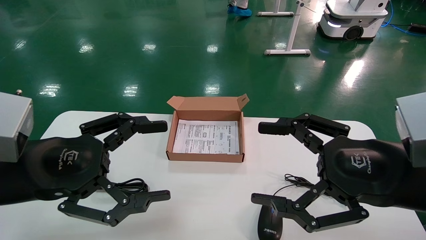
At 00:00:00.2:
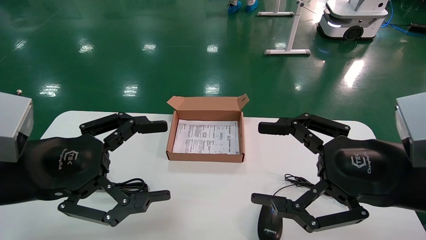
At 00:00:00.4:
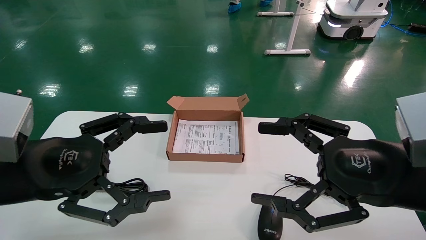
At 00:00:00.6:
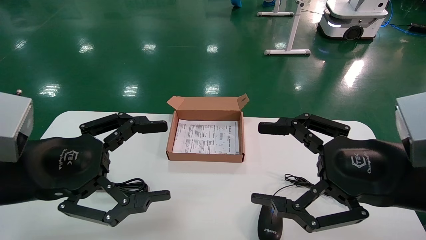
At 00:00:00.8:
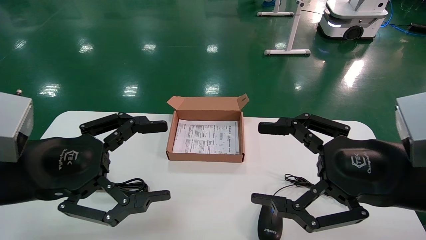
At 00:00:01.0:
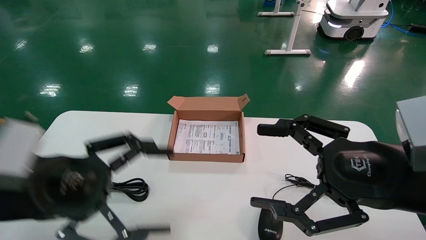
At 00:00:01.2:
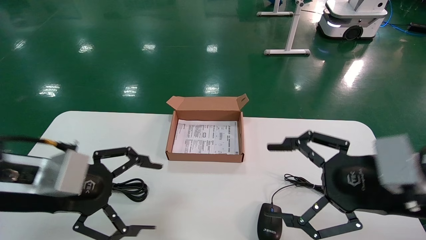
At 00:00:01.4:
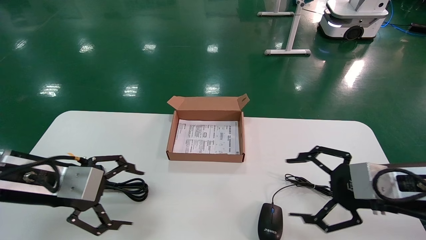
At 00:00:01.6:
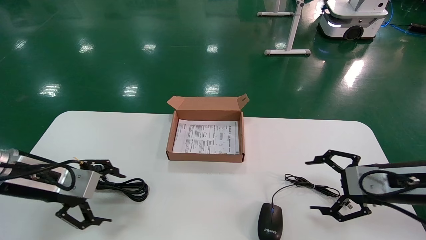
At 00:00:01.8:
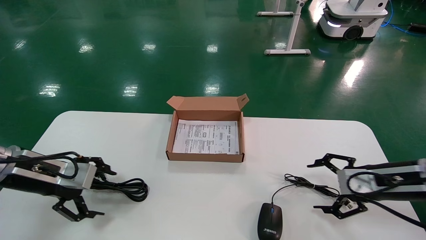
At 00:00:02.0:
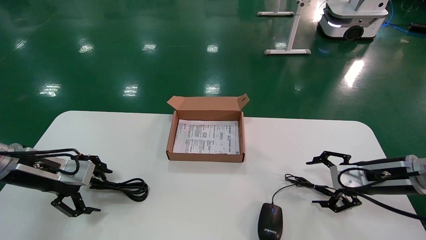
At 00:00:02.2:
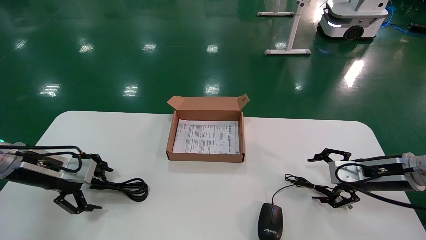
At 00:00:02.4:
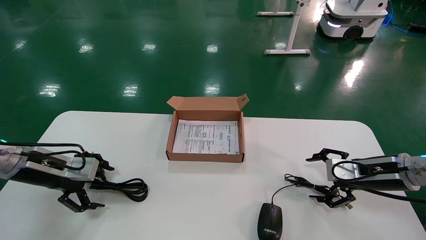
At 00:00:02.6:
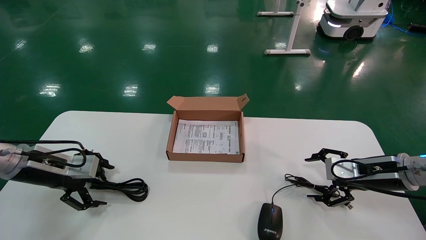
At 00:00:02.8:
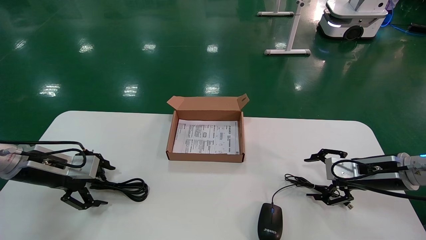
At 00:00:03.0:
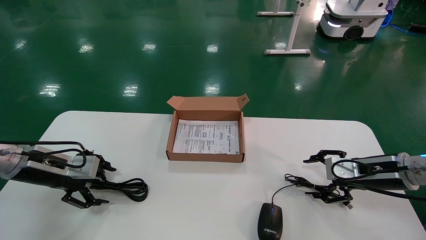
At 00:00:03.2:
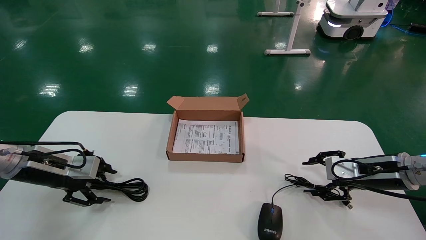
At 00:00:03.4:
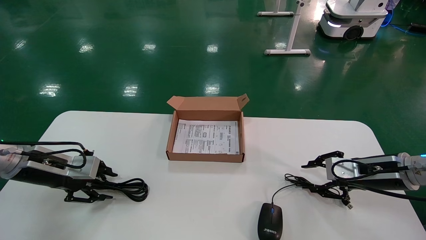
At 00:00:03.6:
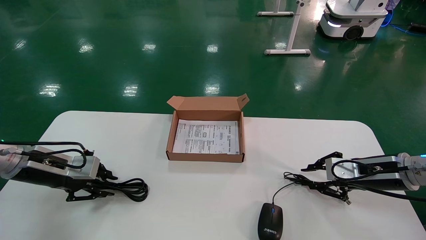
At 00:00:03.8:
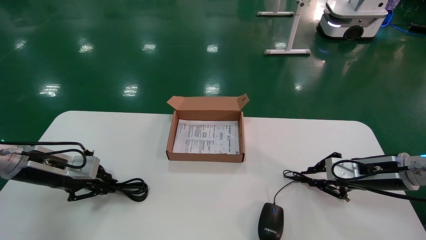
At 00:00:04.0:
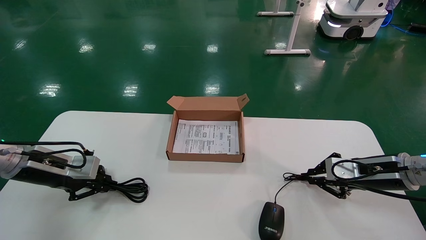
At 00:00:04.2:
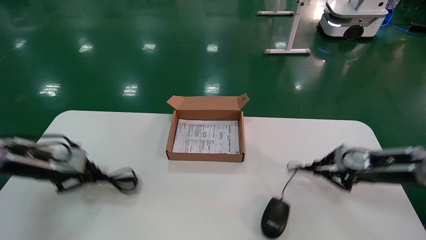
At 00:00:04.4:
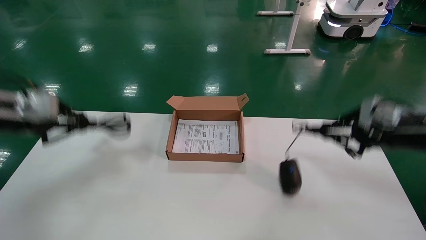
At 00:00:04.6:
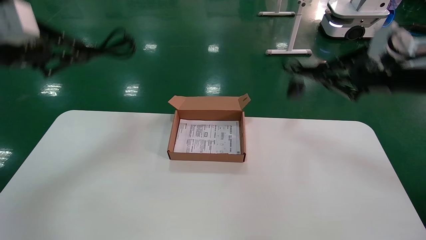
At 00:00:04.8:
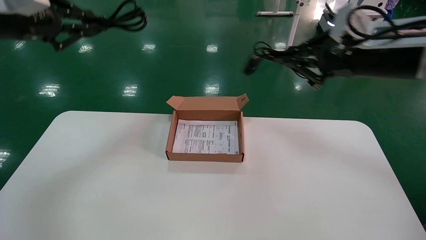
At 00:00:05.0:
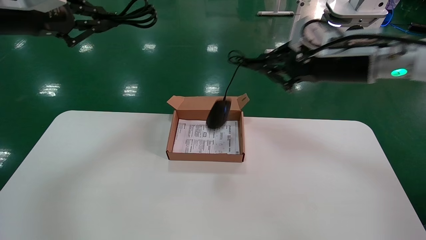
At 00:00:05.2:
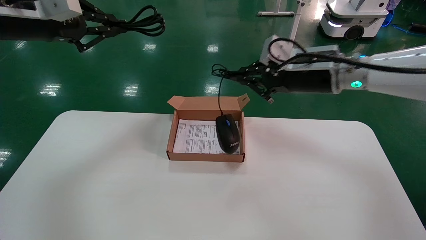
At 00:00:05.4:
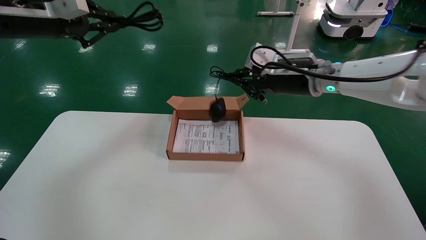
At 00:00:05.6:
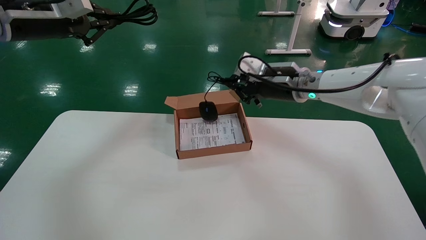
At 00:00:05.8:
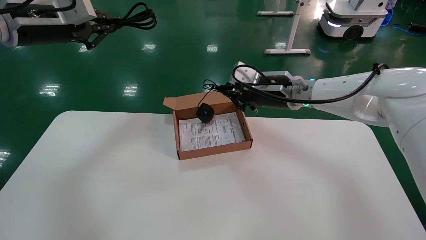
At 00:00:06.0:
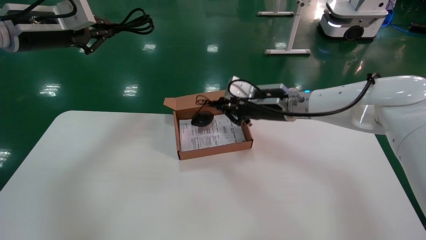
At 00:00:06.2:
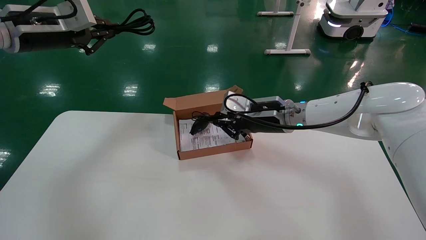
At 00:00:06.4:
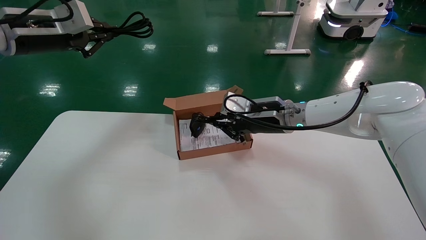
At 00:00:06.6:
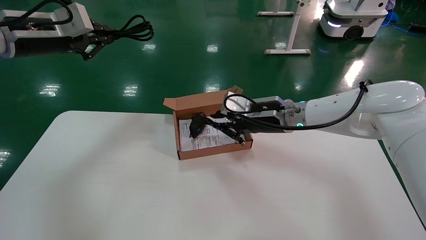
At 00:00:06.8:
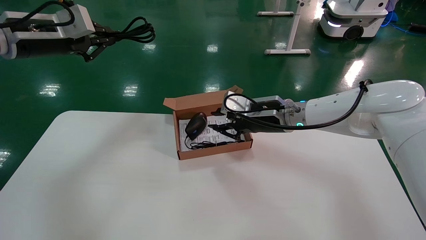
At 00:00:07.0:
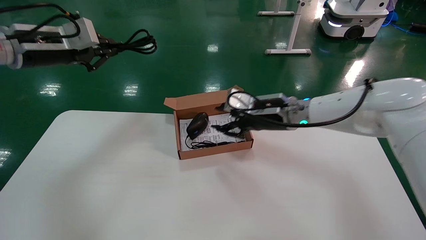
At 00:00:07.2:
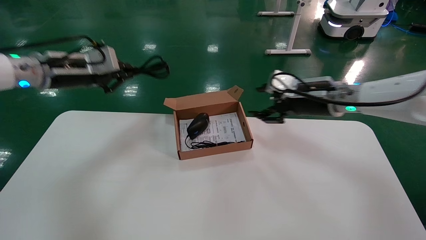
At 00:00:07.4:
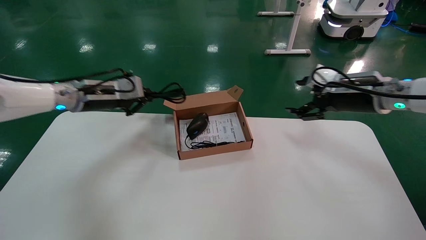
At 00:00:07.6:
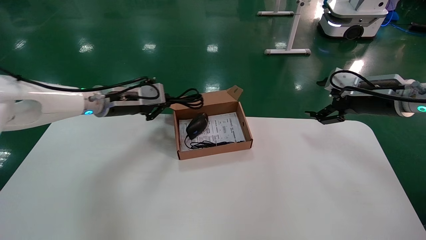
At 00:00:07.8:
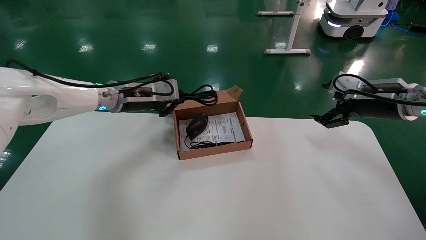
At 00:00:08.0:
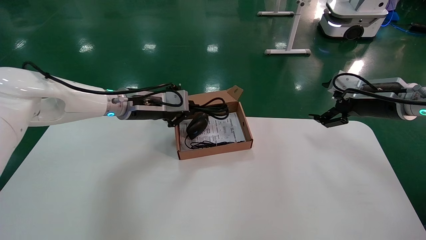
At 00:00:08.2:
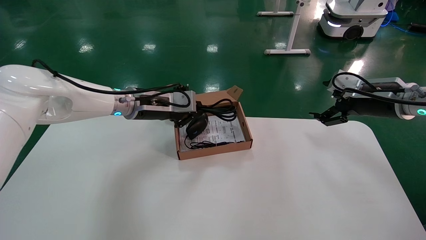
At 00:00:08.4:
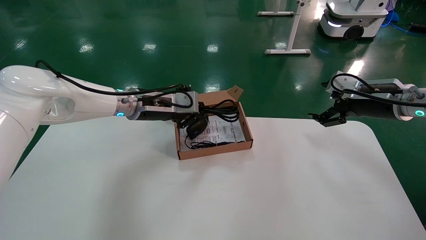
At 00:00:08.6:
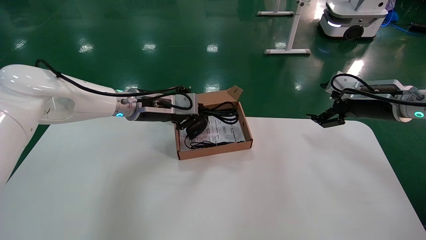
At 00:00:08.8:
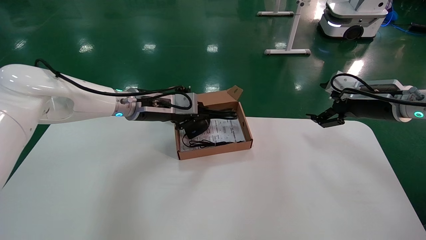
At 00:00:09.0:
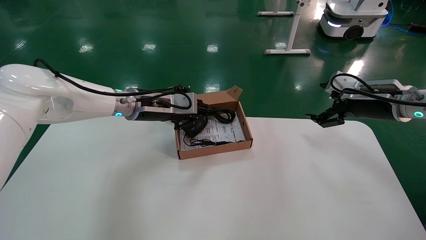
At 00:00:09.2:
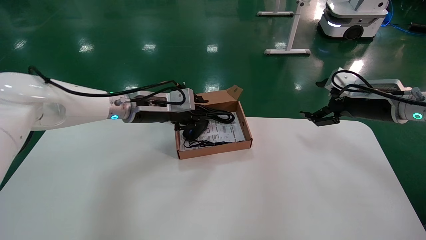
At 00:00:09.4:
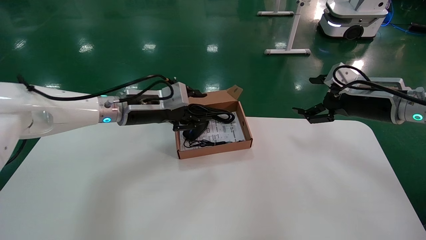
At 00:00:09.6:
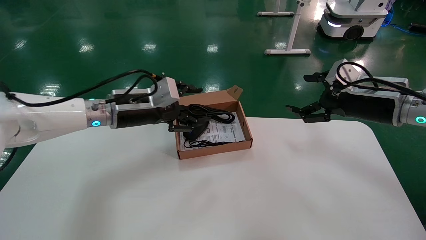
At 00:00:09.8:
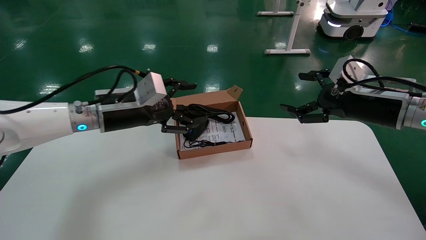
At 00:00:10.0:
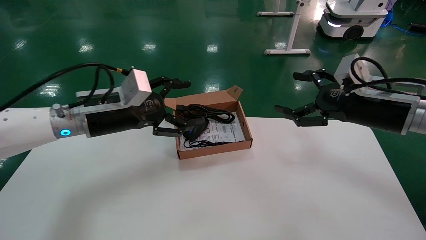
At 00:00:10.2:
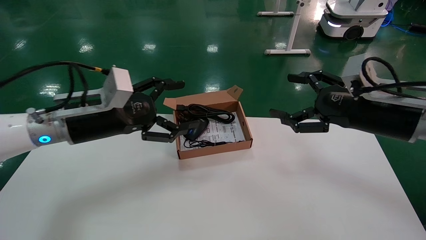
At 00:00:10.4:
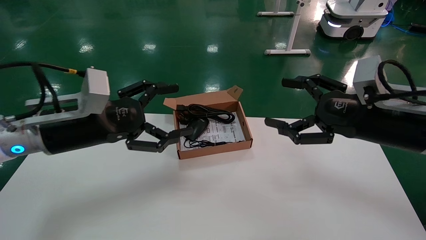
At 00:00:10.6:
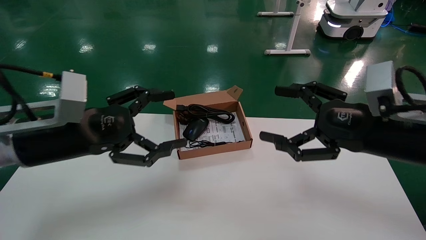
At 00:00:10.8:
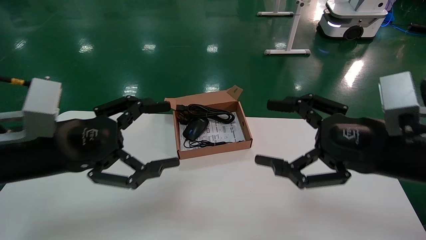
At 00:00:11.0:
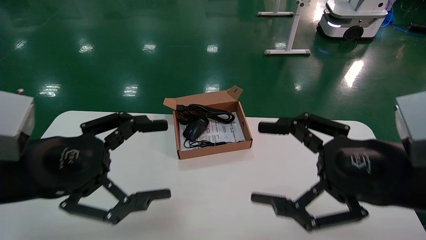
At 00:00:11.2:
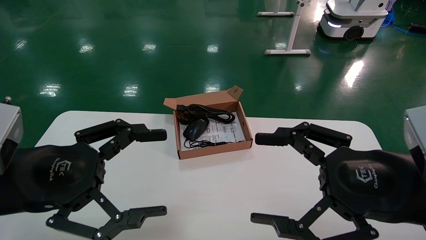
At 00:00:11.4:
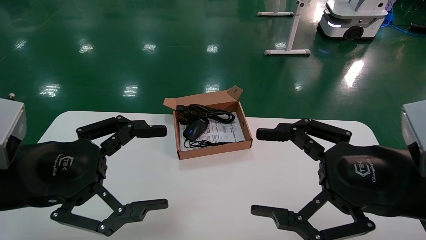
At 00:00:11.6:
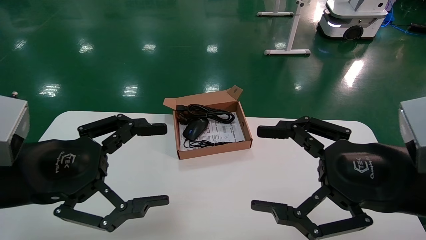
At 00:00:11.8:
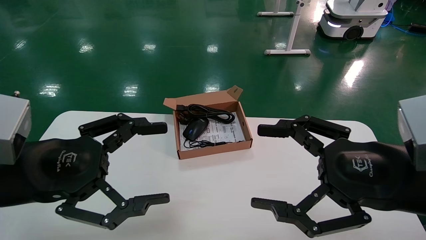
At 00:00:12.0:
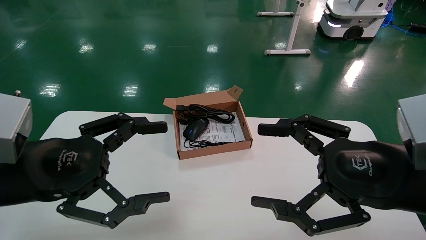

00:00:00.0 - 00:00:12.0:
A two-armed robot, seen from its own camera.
Step, 00:00:01.2 - 00:00:04.0: Grab and lift both the mouse and power cord from the accessory packaging area at the same time.
Step, 00:00:04.2 - 00:00:09.0: Place the mouse and power cord into the box.
00:00:00.0 - 00:00:01.6: The left gripper is displaced forward, to the left and downward by approximately 15 cm. The right gripper heads forward, to the right and downward, covering roughly 15 cm.
00:00:01.6 - 00:00:03.0: The grippers both shift forward by roughly 5 cm.
00:00:03.0 - 00:00:04.4: Both grippers travel together upward, roughly 15 cm. The right gripper closes its fingers, while the left gripper closes up.
00:00:04.4 - 00:00:06.0: The right gripper is displaced to the left and forward by some 25 cm; the left gripper goes some 15 cm upward, forward and to the right.
00:00:06.0 - 00:00:07.6: The left gripper travels downward, to the right and forward by approximately 20 cm; the right gripper heads to the right, covering some 20 cm, and opens up.
00:00:07.6 - 00:00:09.0: The left gripper shifts about 10 cm to the right.
00:00:09.0 - 00:00:10.4: Both grippers travel together backward and to the left, approximately 15 cm. The left gripper opens its fingers.
00:00:10.4 - 00:00:12.0: Both grippers move backward, about 10 cm.

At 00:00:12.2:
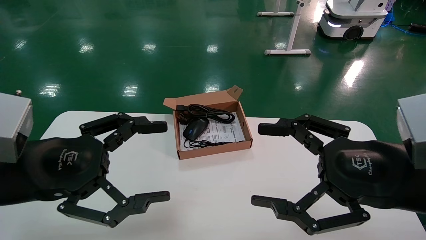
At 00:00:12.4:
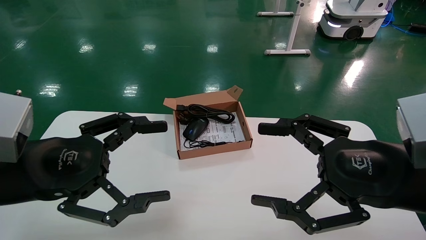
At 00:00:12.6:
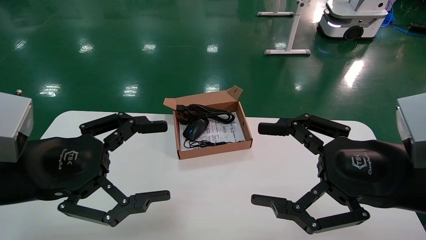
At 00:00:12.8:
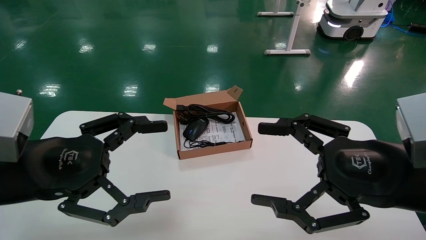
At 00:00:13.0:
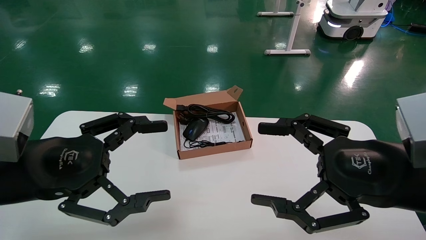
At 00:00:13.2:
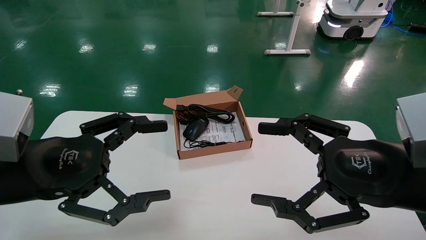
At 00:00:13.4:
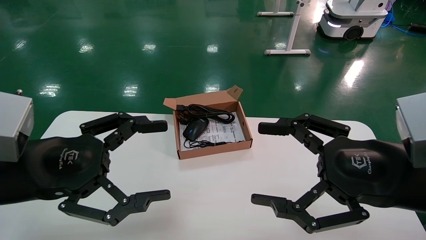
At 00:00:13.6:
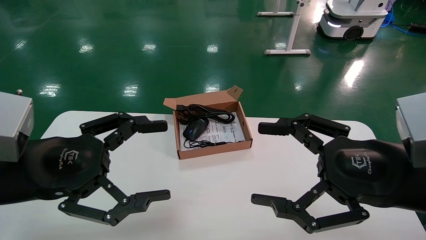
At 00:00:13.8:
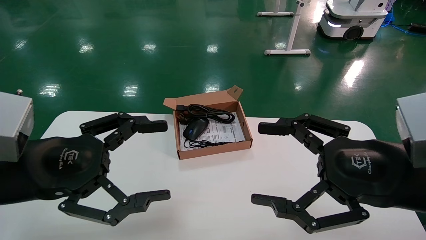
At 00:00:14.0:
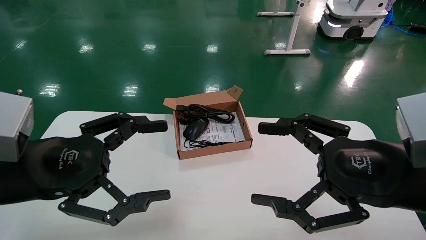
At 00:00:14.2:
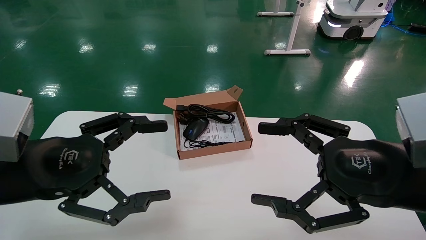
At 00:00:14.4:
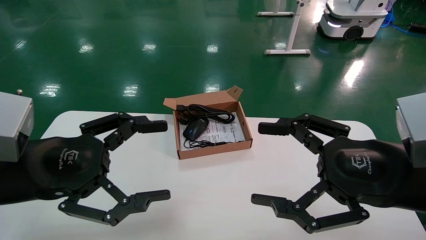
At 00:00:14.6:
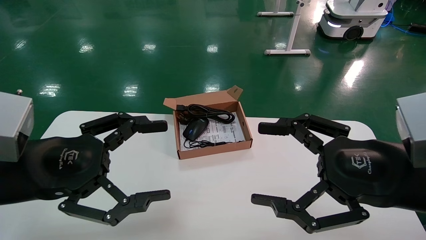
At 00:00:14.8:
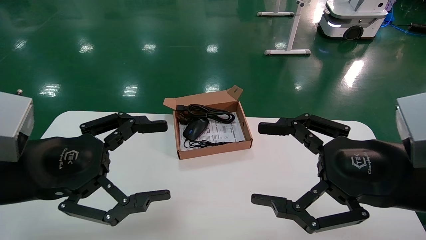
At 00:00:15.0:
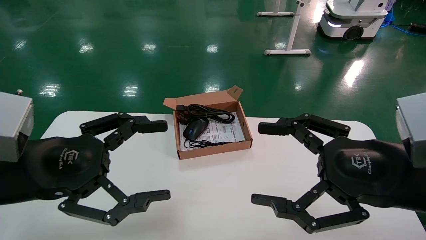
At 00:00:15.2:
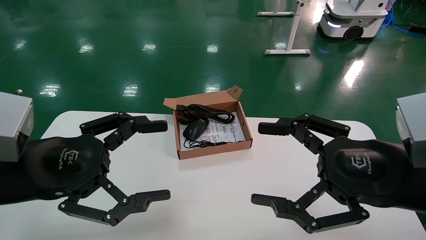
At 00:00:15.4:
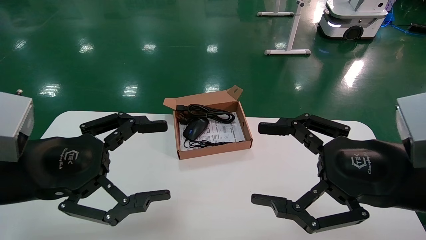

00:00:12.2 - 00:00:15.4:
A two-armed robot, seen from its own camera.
00:00:12.2 - 00:00:15.4: The two grippers keep their place.
